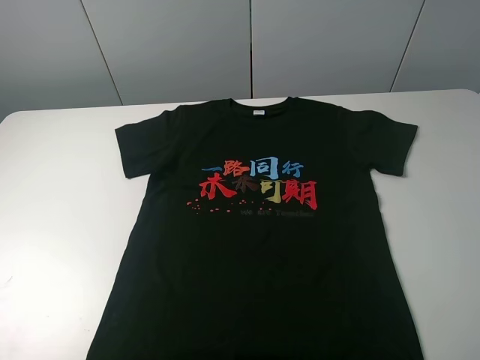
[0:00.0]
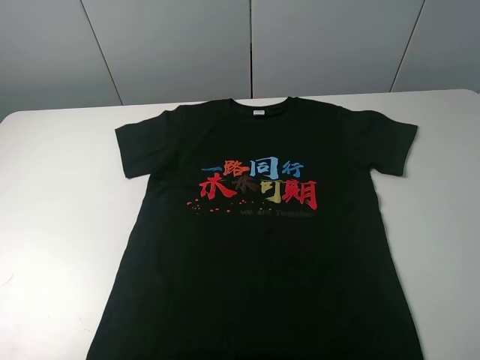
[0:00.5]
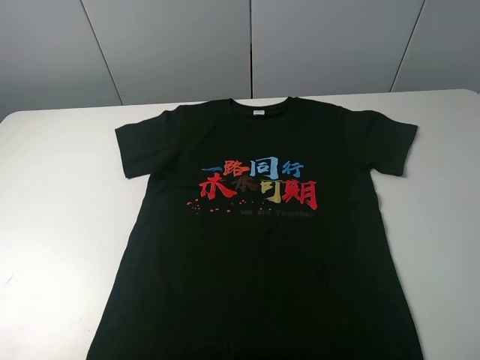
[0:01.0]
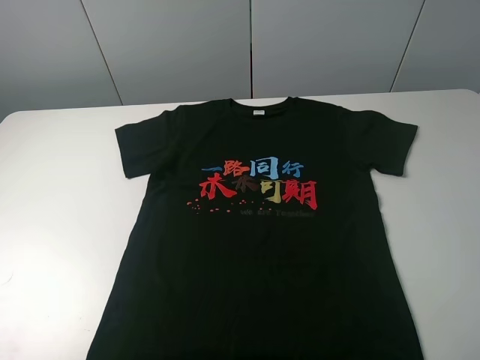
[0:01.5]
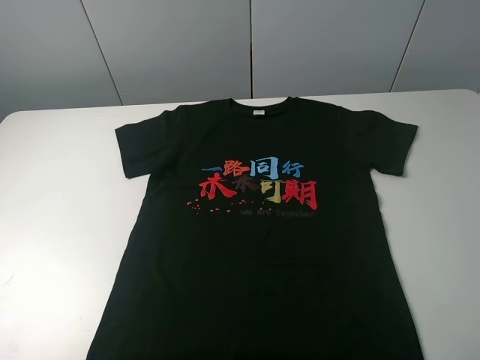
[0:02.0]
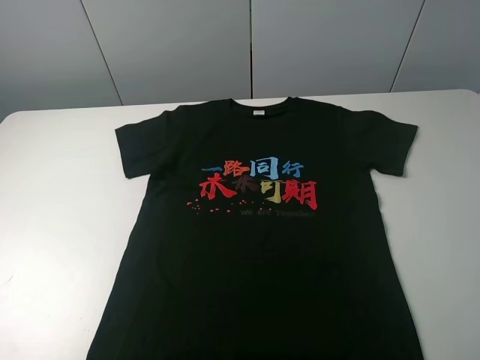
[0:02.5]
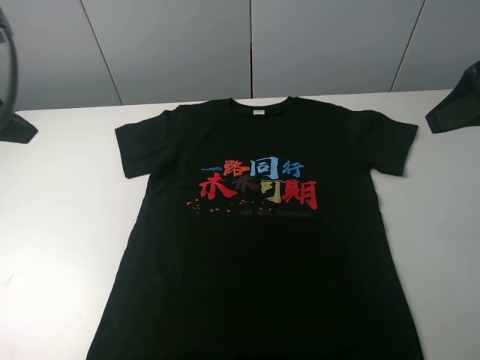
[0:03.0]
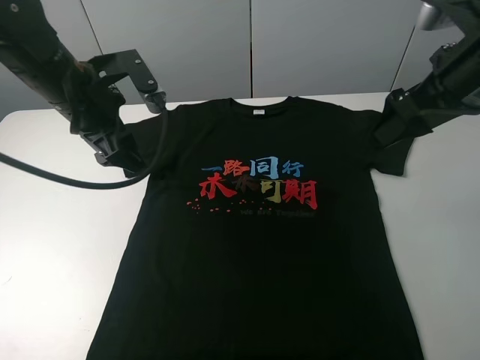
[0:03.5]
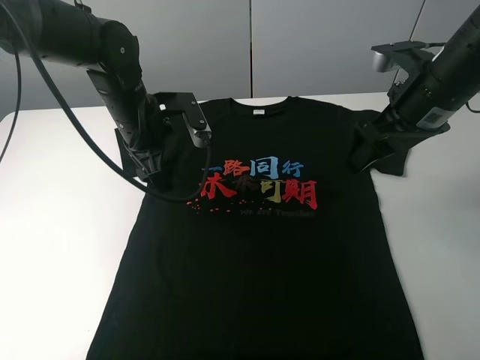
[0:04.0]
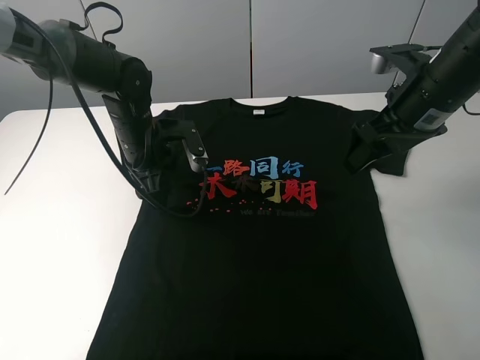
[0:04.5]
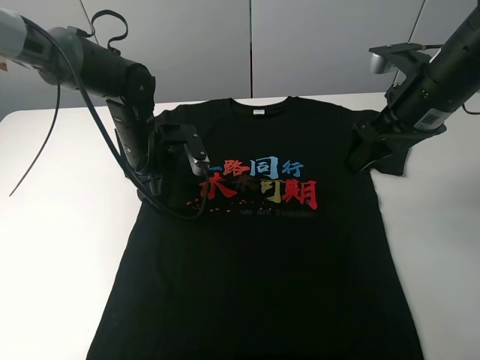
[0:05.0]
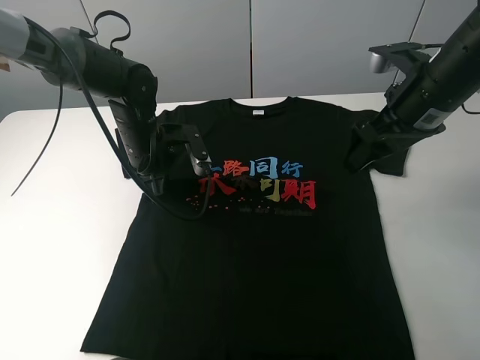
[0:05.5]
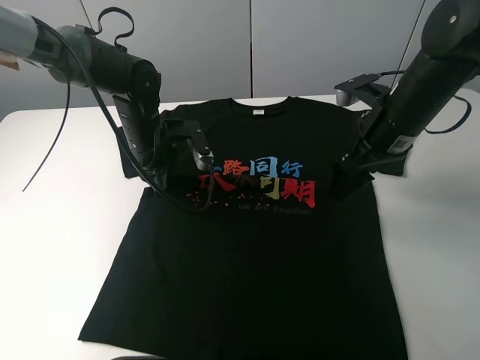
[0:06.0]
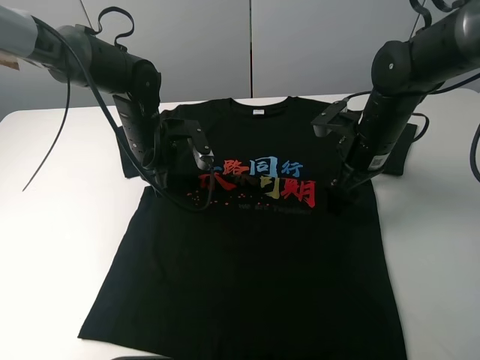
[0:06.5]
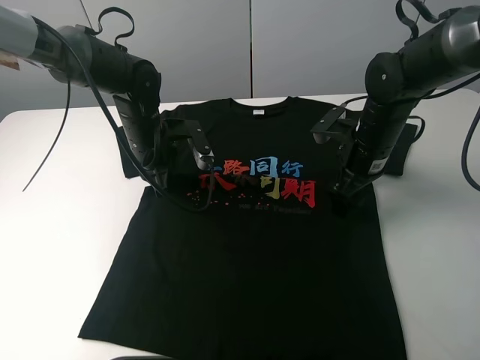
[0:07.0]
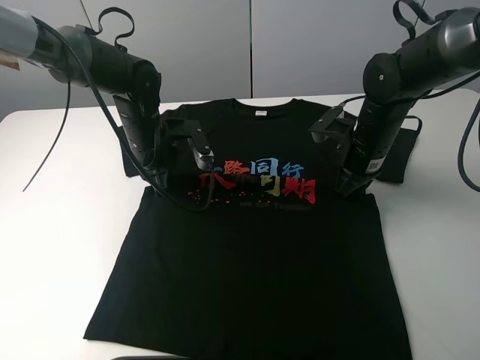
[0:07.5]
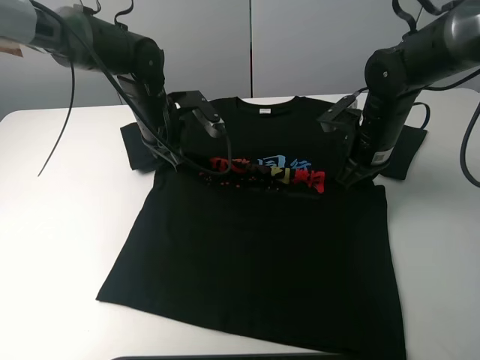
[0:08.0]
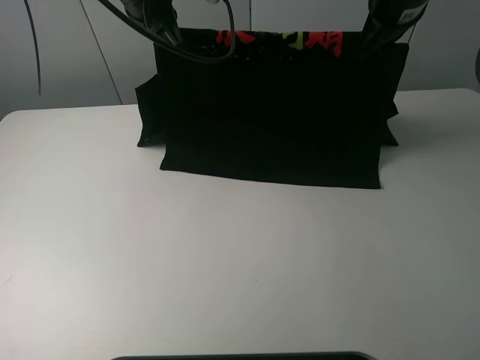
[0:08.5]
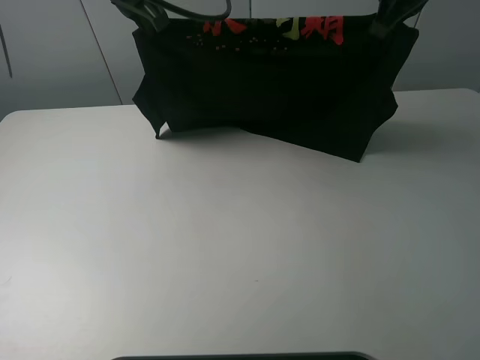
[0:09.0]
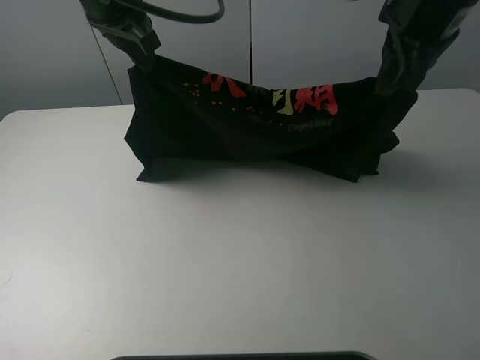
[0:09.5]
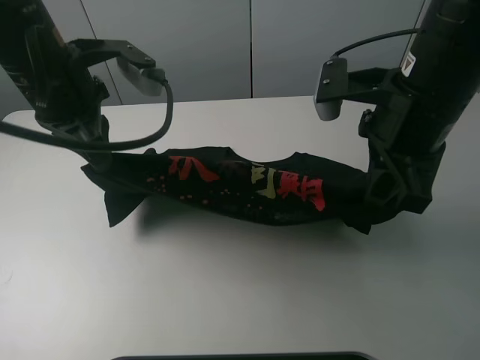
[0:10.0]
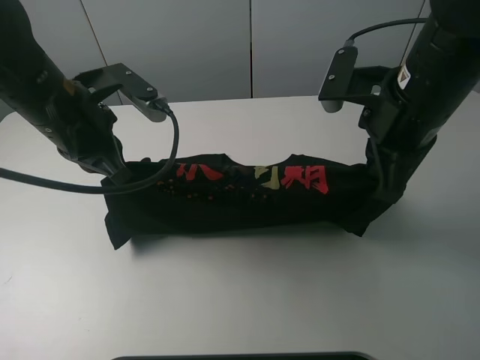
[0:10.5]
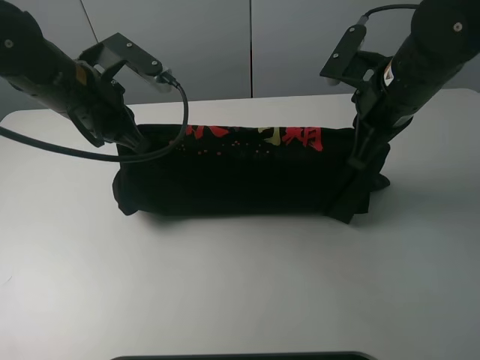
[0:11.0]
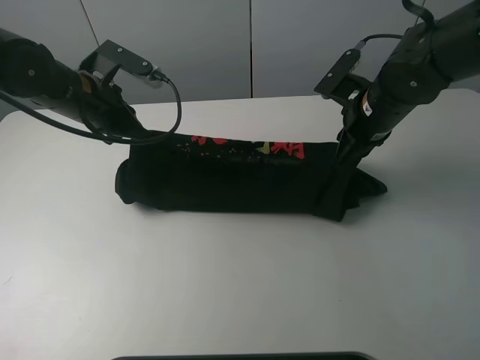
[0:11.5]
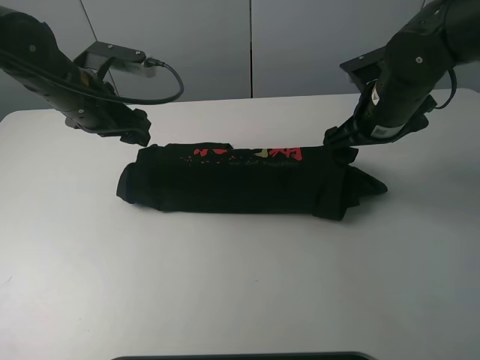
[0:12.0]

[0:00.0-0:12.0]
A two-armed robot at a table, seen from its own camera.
Task of the whole recording: fold the clothes on the table.
Step, 0:00.0 to 0:07.0: Lift the black T-shirt with the left gripper.
Step, 0:07.5 to 0:12.0: Fold the black T-shirt downward with the left gripper.
0:00.0 to 0:02.0: Both grippers stay put.
0:02.0 to 0:04.0: The right gripper heads forward, covering some 30 cm; the left gripper goes roughly 40 cm forward, to the right and downward.
0:04.0 to 0:06.0: The left gripper changes place by roughly 5 cm, and closes its fingers. The right gripper ends up roughly 5 cm from where it was.
0:06.0 to 0:08.0: The right gripper moves some 5 cm, and closes its fingers.
0:08.0 to 0:10.0: The right gripper moves upward and backward, some 20 cm; the left gripper is displaced upward, backward and to the left by some 20 cm.
0:10.0 to 0:12.0: Both grippers move forward and downward, approximately 10 cm. The right gripper opens its fingers. The left gripper opens.

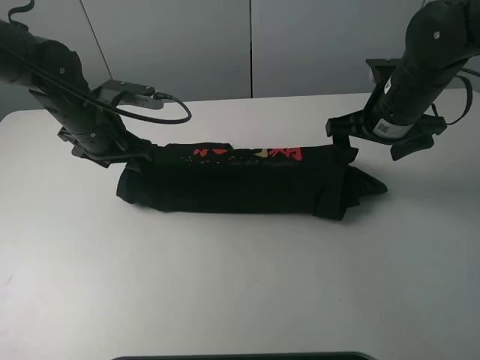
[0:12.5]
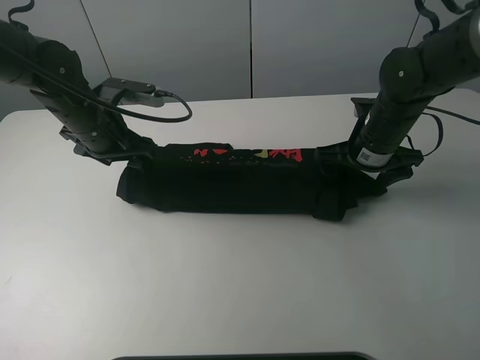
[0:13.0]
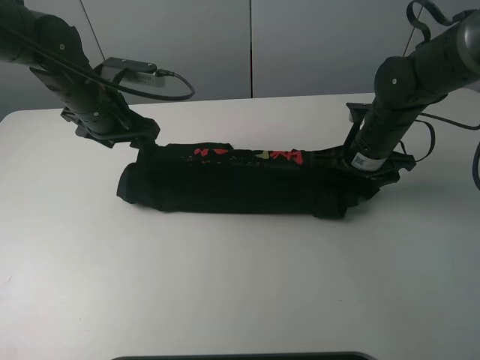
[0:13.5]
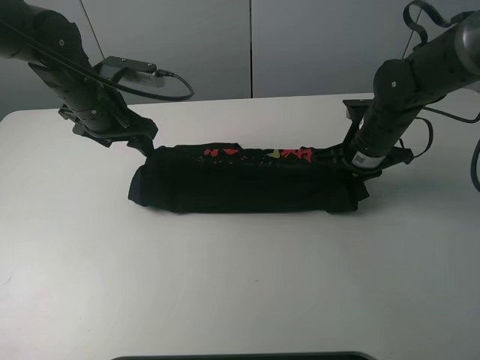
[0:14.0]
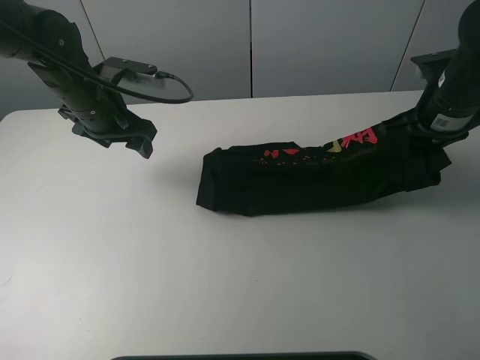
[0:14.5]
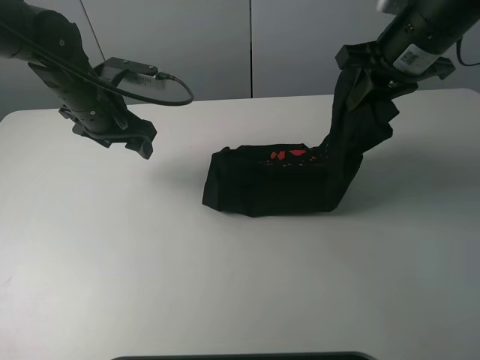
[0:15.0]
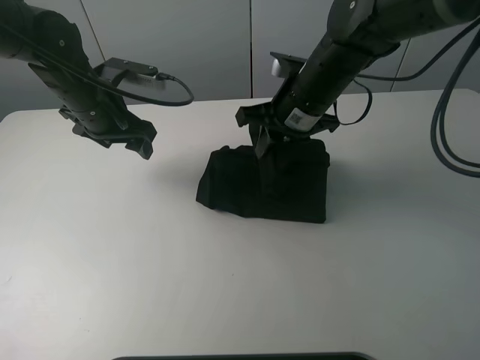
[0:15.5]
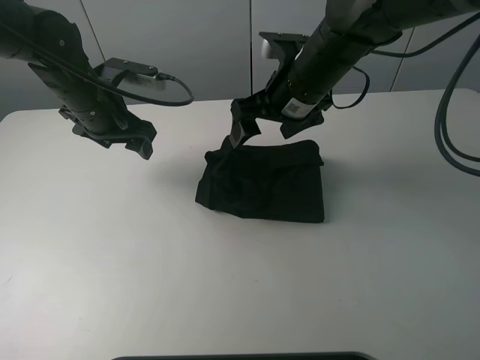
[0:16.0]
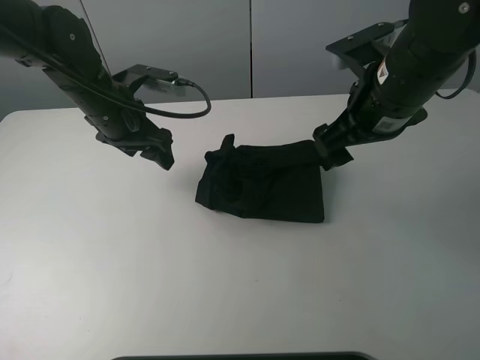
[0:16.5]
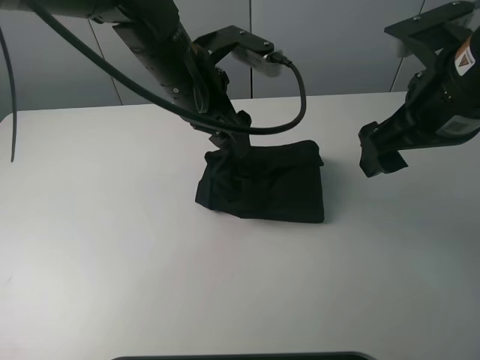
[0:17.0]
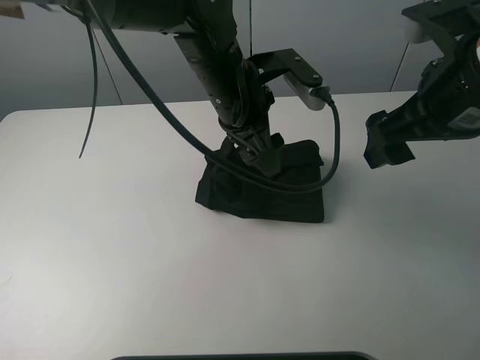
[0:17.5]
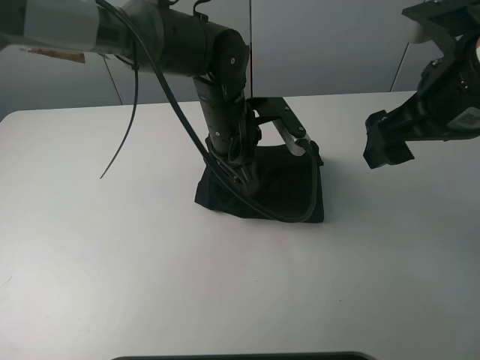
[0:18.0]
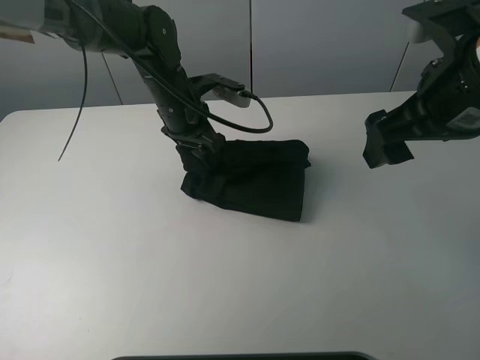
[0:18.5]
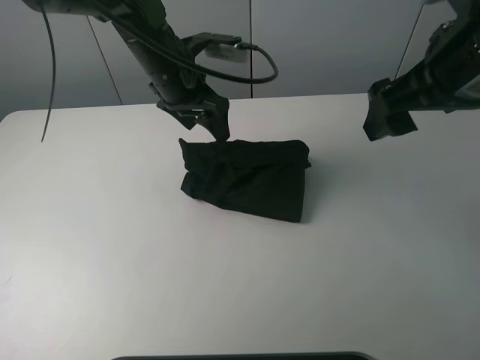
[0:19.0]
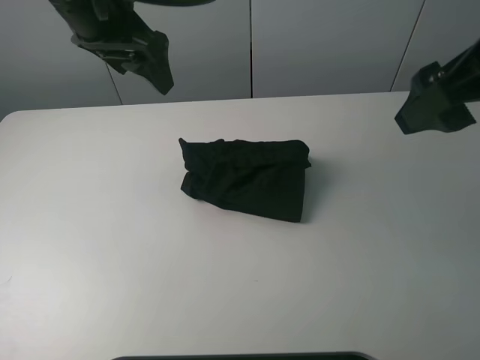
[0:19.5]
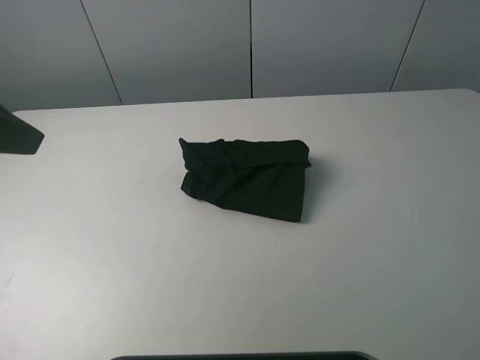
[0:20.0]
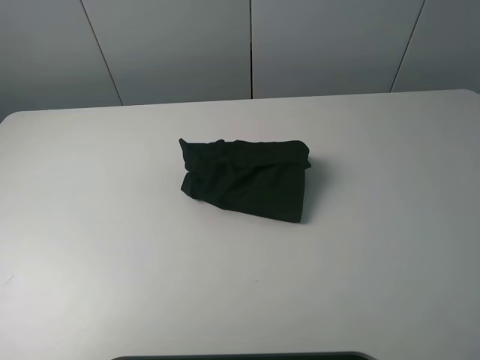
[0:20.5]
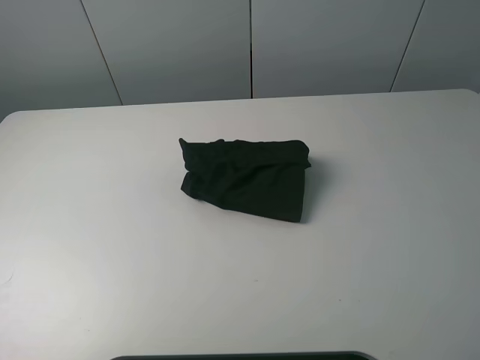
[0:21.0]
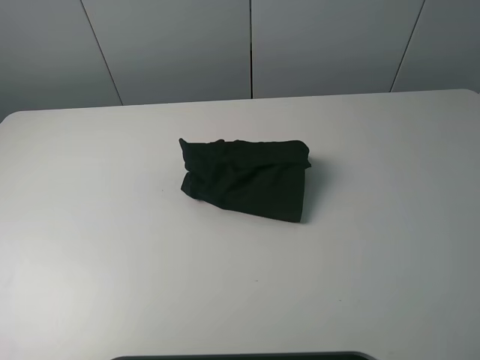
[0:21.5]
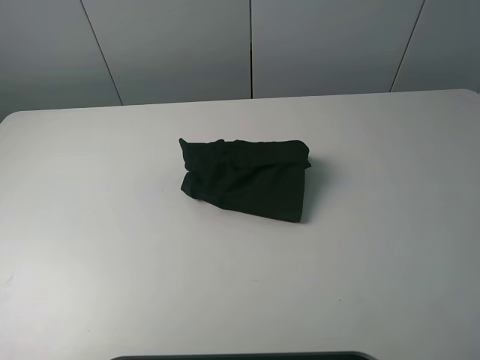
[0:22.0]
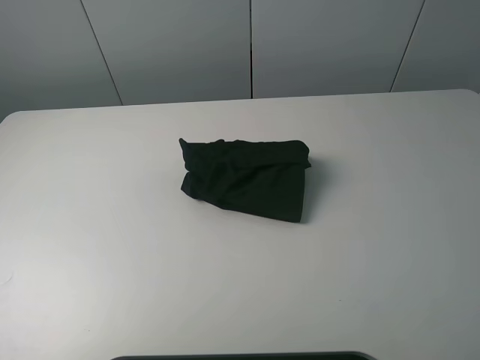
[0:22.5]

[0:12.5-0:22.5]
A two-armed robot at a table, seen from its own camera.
Task of the whole recording: fold the clothes on the table.
Step, 0:12.5 to 0:14.0: Grasp the black T-shirt with the right gripper.
Step, 0:14.5 to 0:16.0: Fold the black T-shirt from right to left with right gripper.
Step, 0:16.5 to 0:19.0: Use the left gripper to tidy up the clothes.
0:12.5 to 0:14.5: The right gripper is displaced to the right by roughly 5 cm, and closes up.
0:14.5 to 0:16.5: The right gripper heads to the left and backward, covering some 15 cm, and opens up.
0:16.5 to 0:18.5: The right gripper travels backward by some 5 cm. The left gripper moves to the right, approximately 10 cm.
0:18.5 to 0:20.5: The left gripper is displaced backward, to the left and upward by about 50 cm, while the right gripper shifts some 25 cm backward and to the right.
